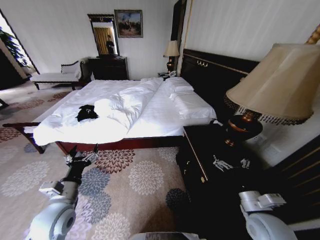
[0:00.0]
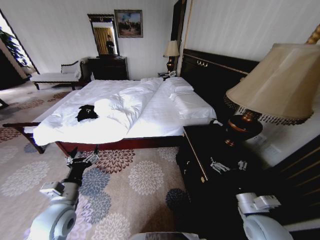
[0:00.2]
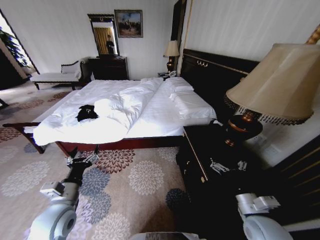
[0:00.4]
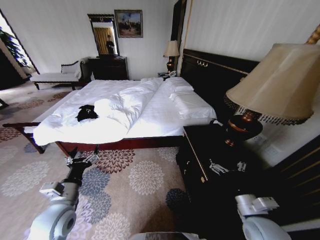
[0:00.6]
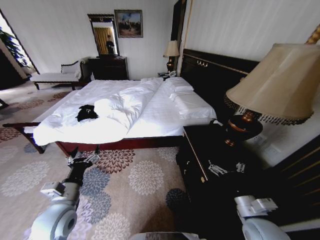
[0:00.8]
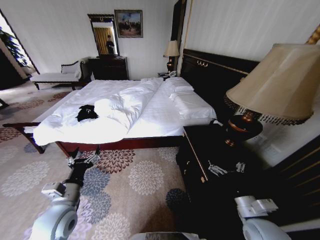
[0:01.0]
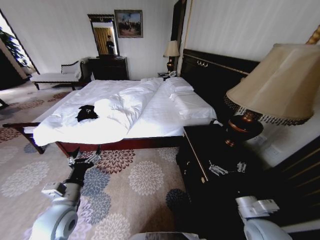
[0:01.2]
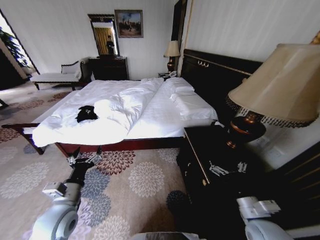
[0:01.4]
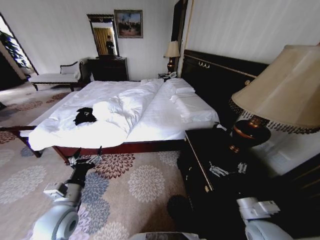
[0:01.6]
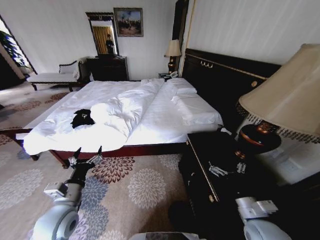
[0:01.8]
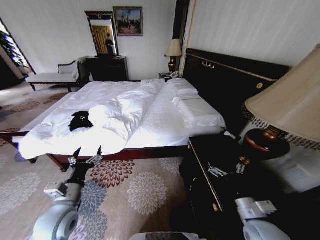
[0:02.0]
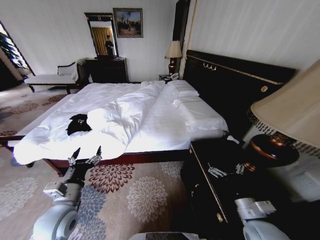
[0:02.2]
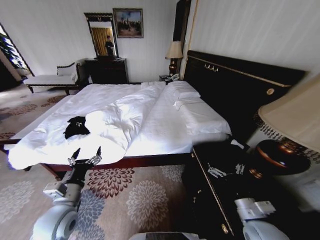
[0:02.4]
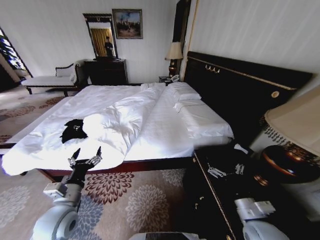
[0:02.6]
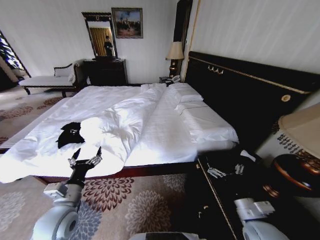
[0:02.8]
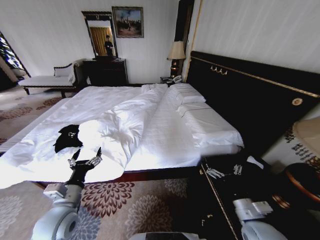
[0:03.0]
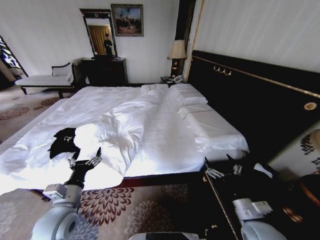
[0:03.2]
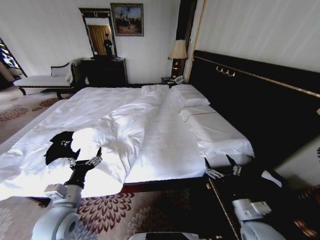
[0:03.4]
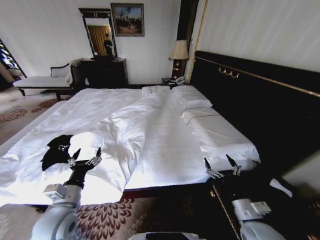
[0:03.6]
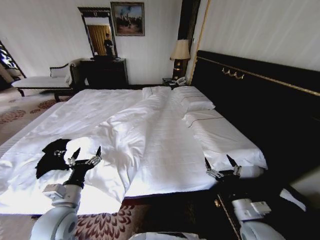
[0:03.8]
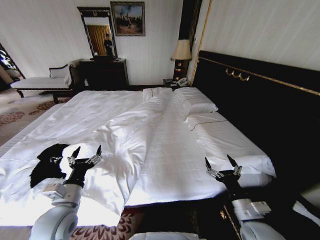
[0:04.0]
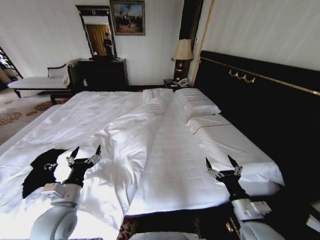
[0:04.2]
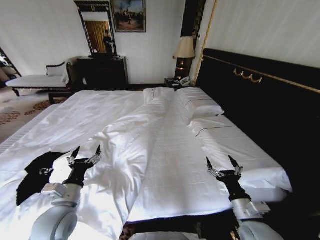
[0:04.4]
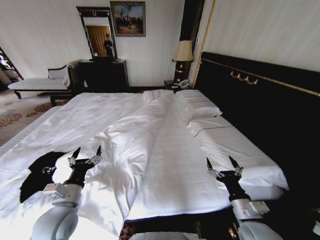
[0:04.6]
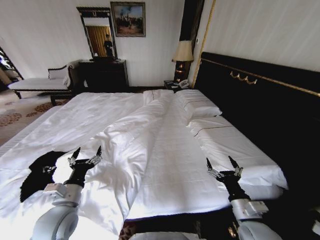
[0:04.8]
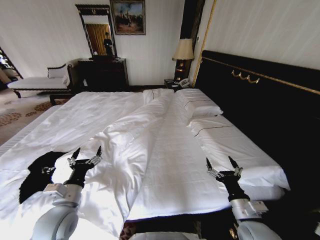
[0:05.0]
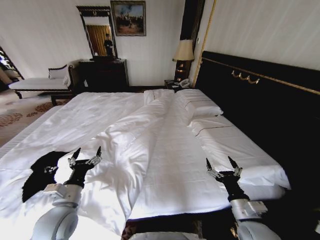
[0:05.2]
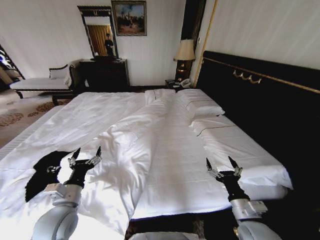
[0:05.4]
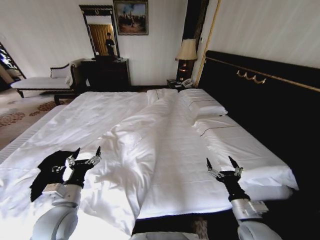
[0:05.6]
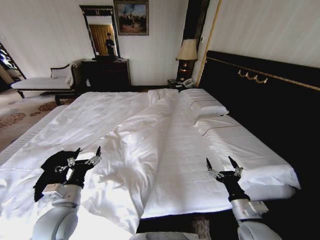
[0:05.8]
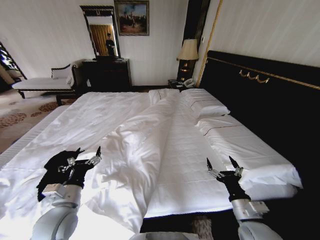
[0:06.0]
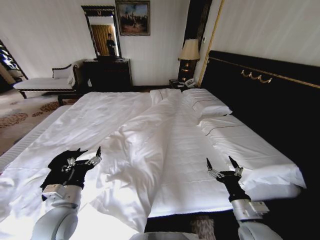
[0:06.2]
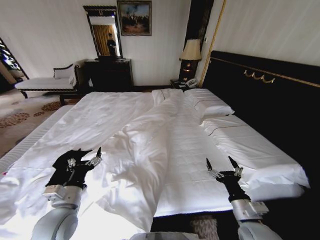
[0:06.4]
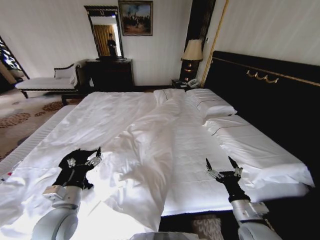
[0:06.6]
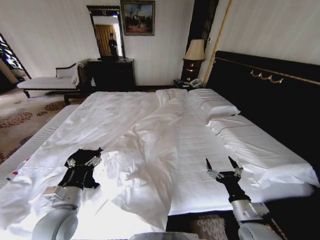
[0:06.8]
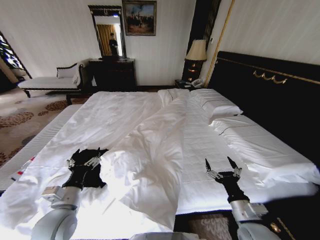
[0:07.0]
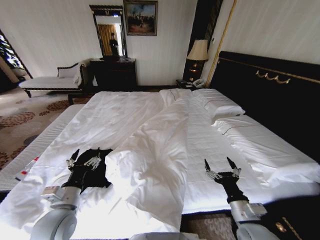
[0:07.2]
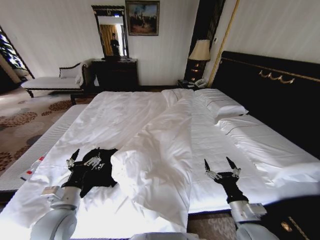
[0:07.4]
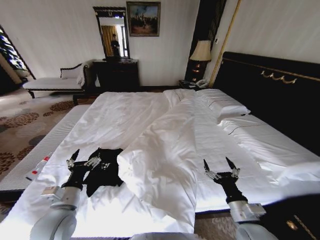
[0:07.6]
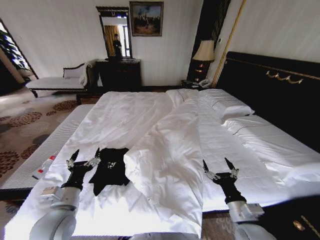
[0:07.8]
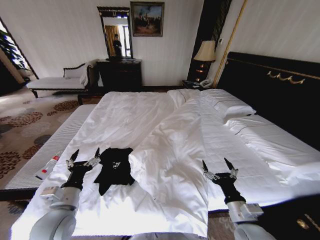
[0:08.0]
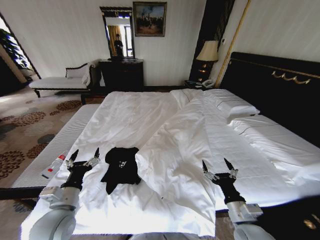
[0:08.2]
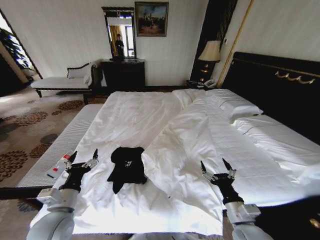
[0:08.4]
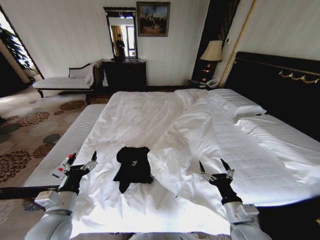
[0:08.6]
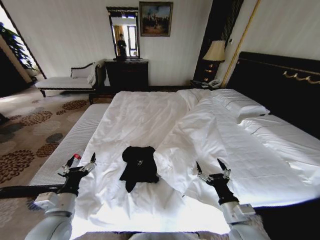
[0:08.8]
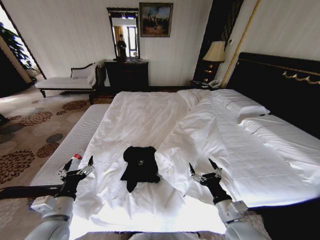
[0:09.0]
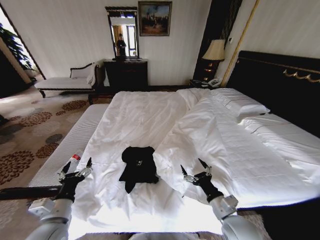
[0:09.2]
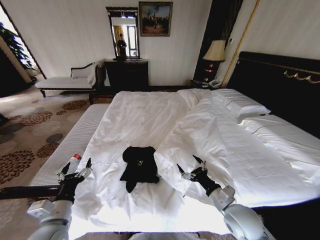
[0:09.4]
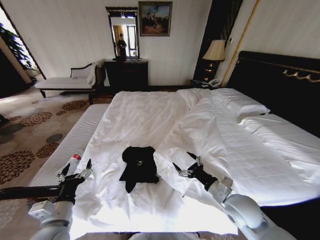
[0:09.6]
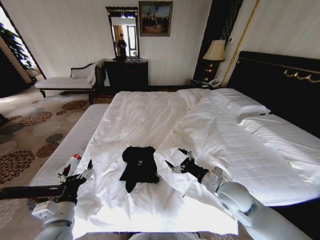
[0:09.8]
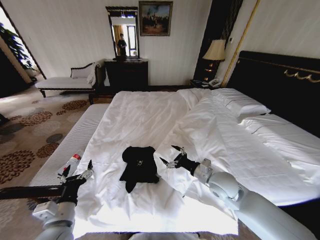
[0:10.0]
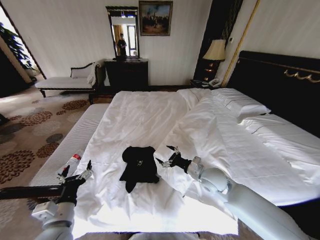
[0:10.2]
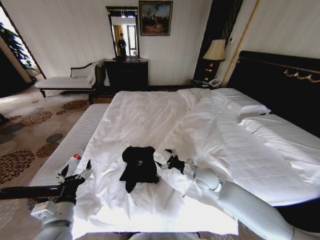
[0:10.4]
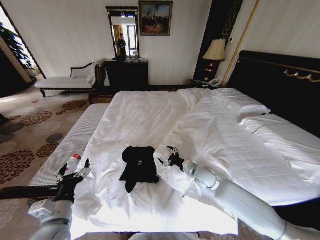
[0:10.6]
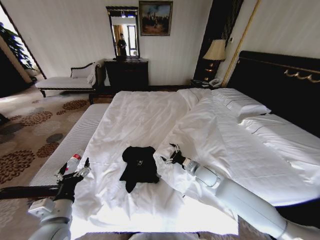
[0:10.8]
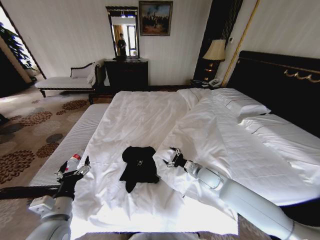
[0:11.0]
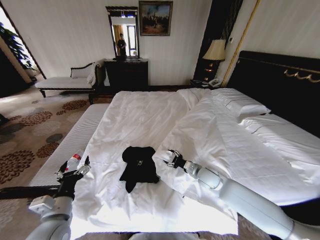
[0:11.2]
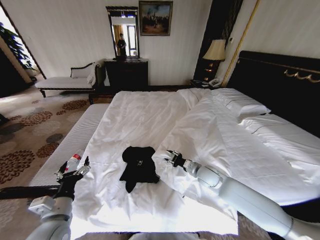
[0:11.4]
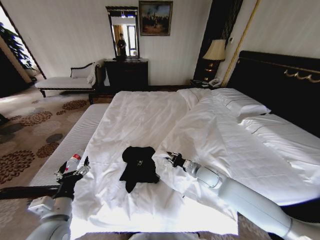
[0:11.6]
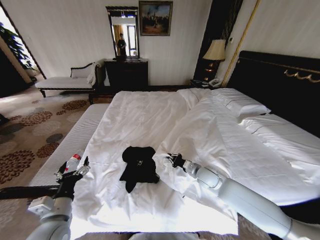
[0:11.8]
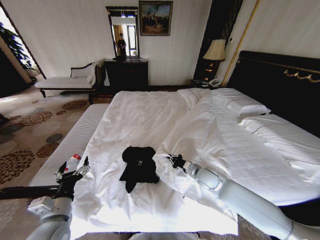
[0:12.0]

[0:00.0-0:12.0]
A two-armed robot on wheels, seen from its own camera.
Task of the whole recording: Fold the clothes on the bed.
0:09.0 to 0:10.4: The right gripper is displaced forward by approximately 20 cm.
0:10.4 to 0:12.0: The right gripper closes up.

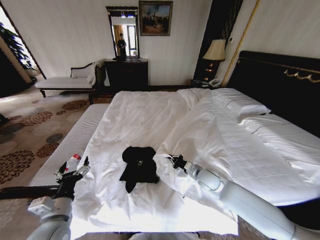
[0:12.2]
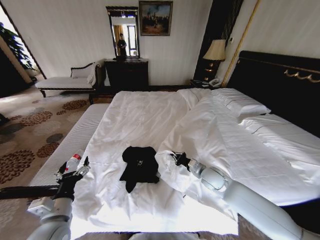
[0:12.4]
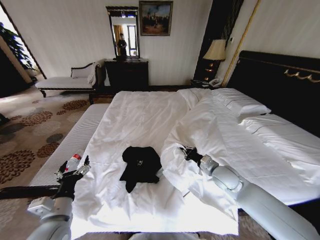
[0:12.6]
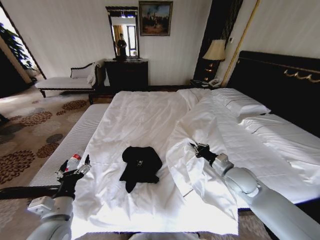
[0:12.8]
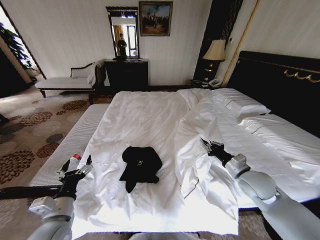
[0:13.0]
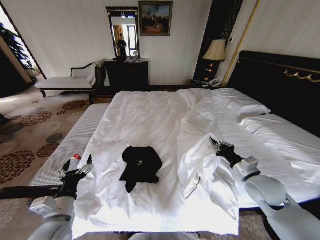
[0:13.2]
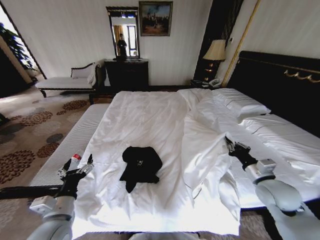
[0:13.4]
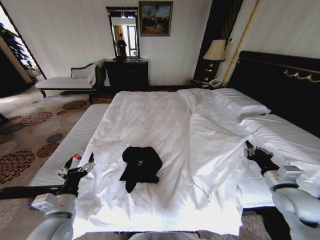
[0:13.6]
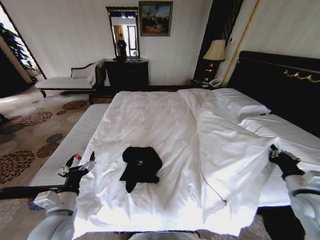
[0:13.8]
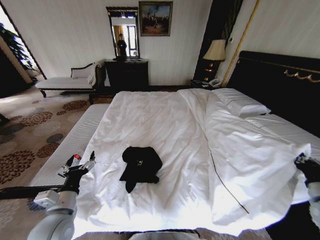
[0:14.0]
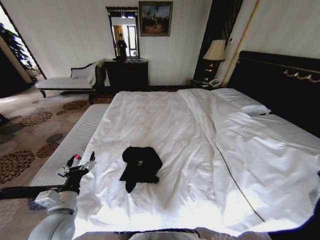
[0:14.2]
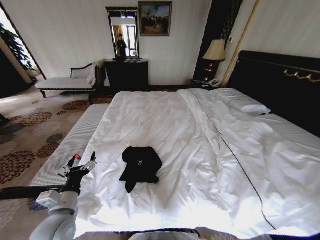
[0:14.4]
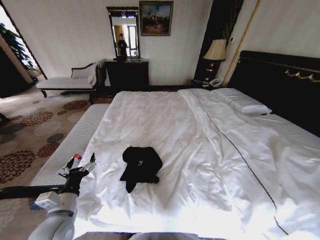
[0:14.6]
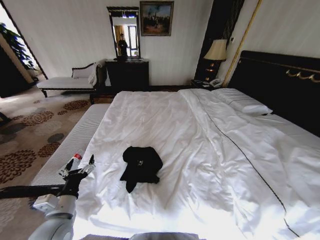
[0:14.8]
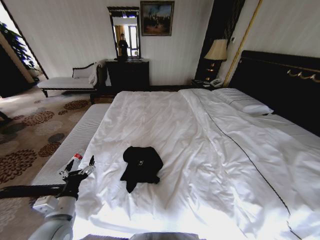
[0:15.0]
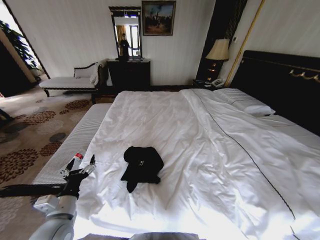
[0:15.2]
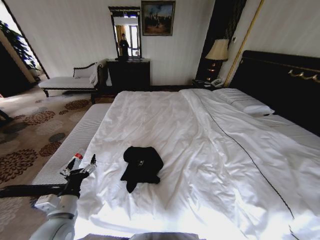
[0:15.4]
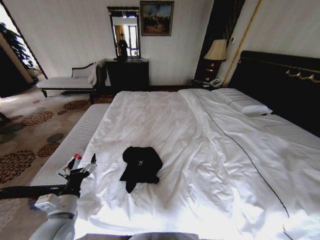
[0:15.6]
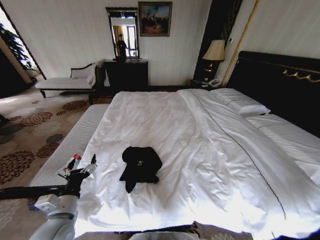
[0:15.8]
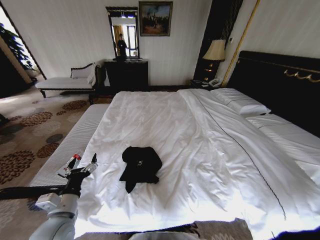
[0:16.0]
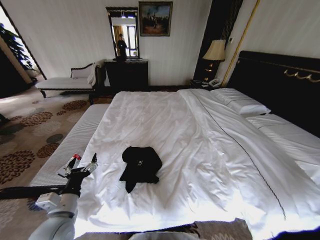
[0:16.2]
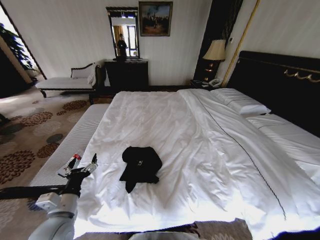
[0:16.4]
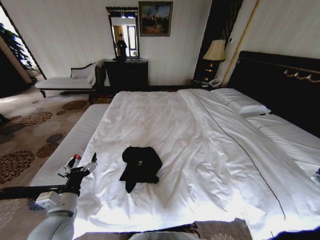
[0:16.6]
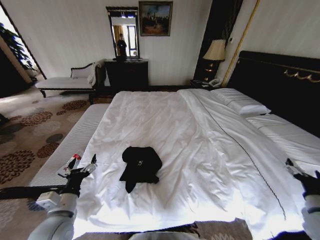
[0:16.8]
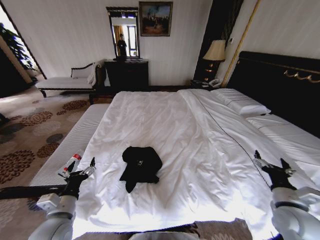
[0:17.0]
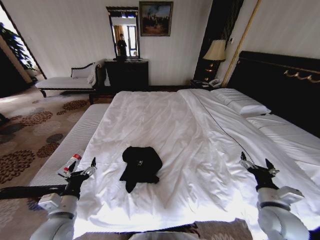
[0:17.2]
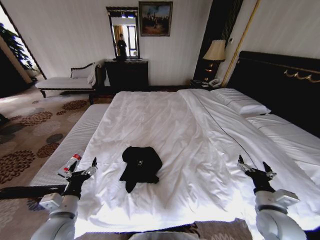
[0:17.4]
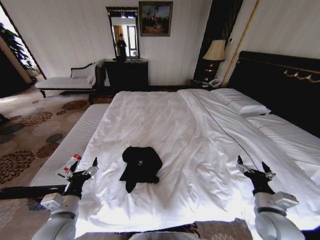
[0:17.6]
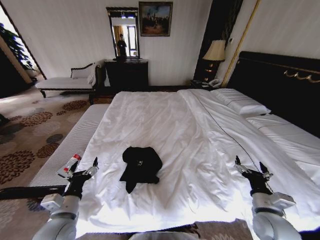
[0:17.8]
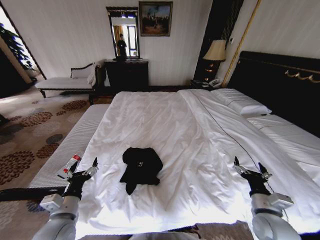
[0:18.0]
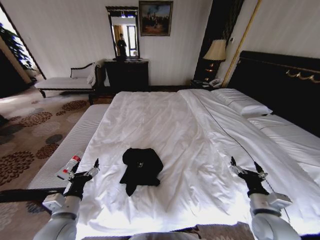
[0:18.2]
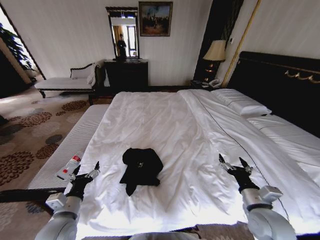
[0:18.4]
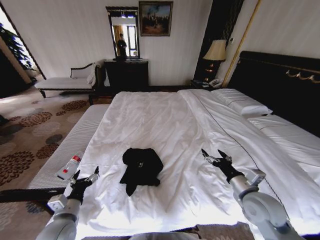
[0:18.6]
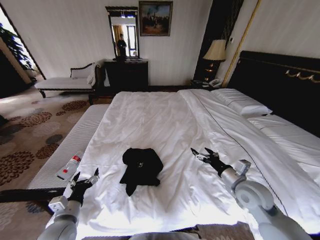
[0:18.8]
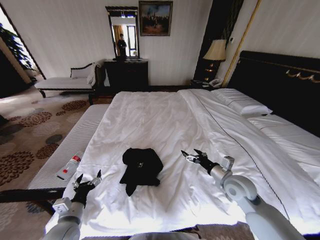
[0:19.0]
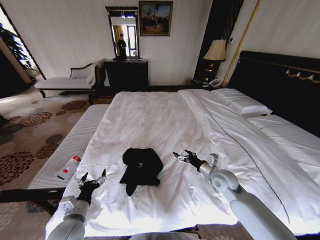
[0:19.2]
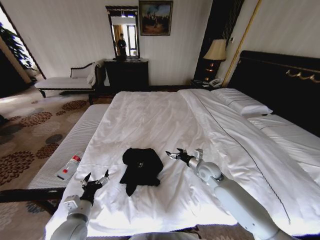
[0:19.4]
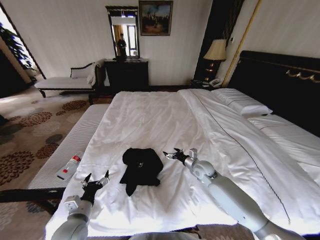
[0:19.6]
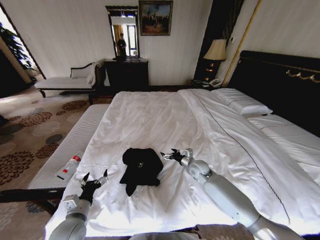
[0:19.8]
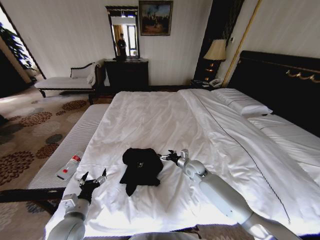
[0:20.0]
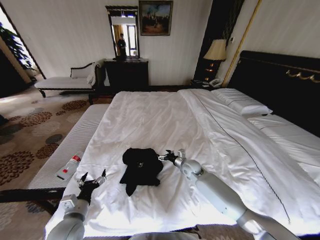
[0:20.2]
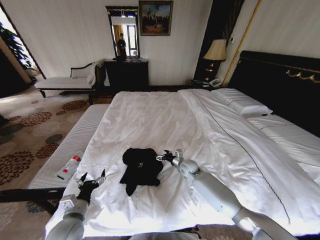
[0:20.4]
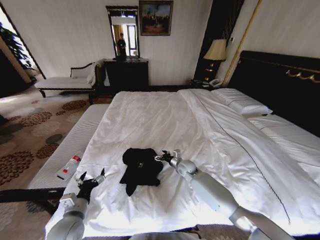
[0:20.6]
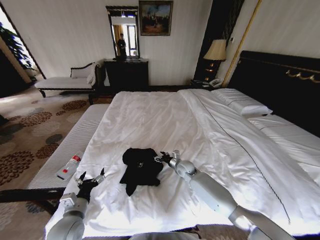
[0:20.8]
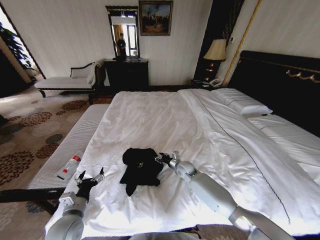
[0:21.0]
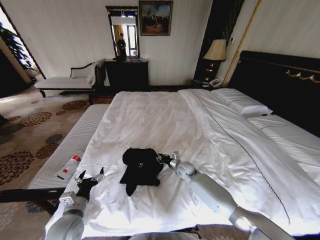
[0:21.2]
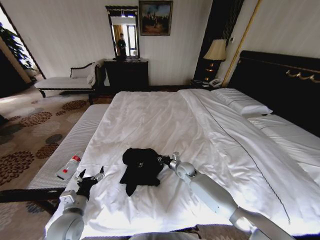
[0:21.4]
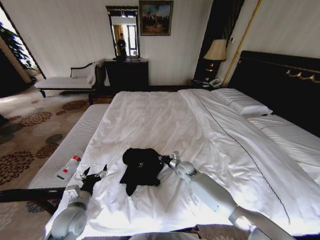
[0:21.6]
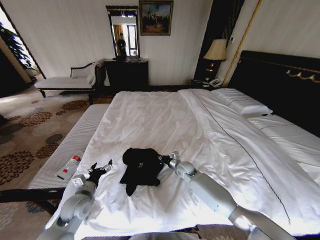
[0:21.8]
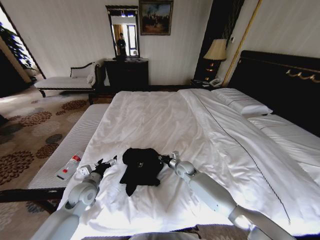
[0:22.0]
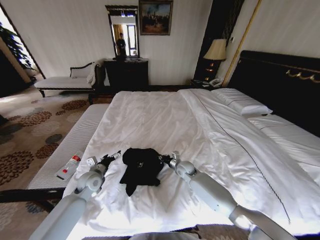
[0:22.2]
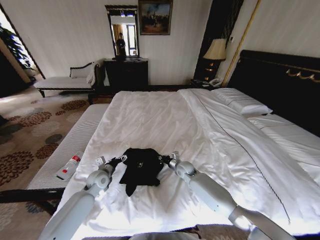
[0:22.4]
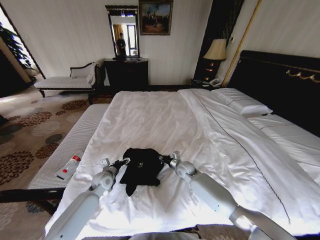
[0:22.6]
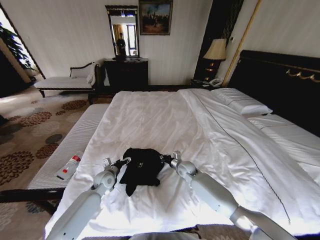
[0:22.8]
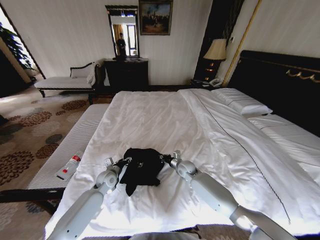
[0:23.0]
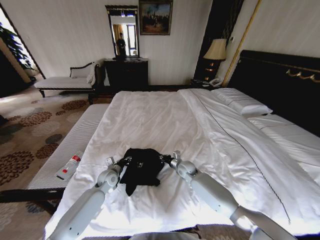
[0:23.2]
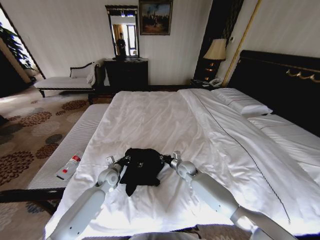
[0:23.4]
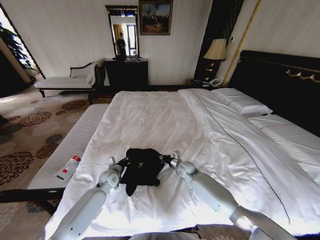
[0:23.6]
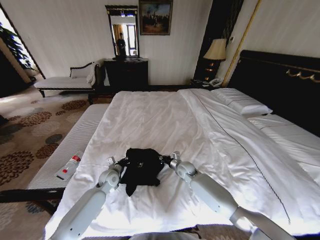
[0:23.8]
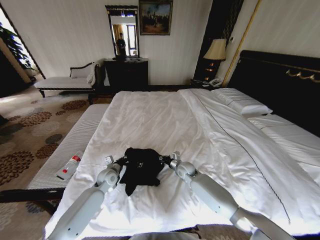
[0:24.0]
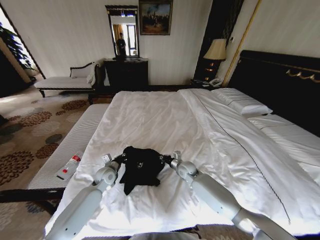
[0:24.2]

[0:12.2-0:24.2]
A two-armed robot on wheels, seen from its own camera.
Task of the whole recording: Fold the clothes on the bed.
0:12.2 to 0:13.8: The right gripper goes some 30 cm to the right, backward and upward.
0:13.8 to 0:15.2: The right gripper is displaced to the right, downward and backward by approximately 30 cm.
0:15.2 to 0:16.6: The right gripper moves to the left and upward, about 15 cm, and opens its fingers.
0:16.6 to 0:18.2: The right gripper moves to the left, approximately 25 cm.
0:18.2 to 0:19.8: The right gripper shifts roughly 30 cm forward and to the left; the left gripper shifts roughly 5 cm downward.
0:19.8 to 0:21.2: The right gripper heads to the left, covering about 5 cm, and closes its fingers.
0:21.2 to 0:22.6: The right gripper closes up, while the left gripper goes about 20 cm forward.
0:22.6 to 0:24.2: The left gripper closes its fingers.
